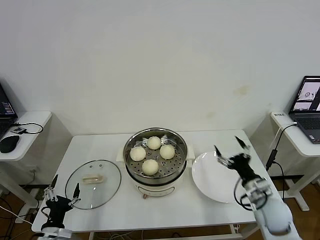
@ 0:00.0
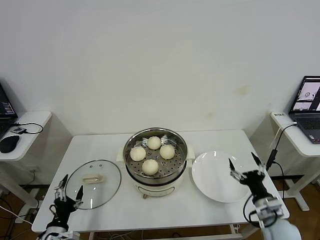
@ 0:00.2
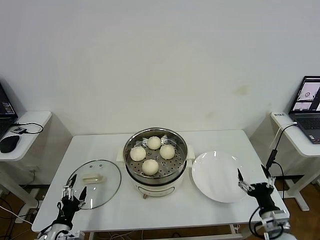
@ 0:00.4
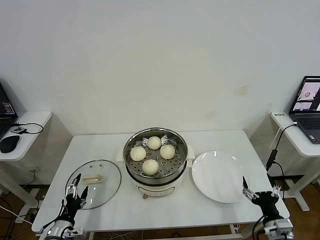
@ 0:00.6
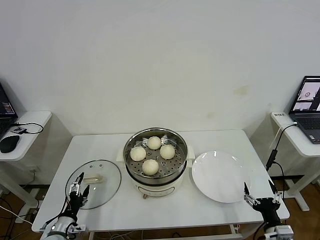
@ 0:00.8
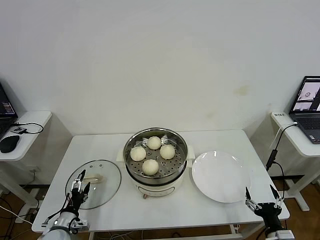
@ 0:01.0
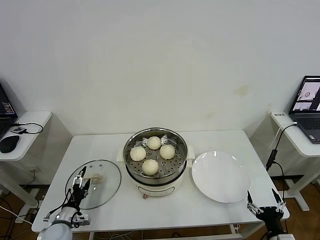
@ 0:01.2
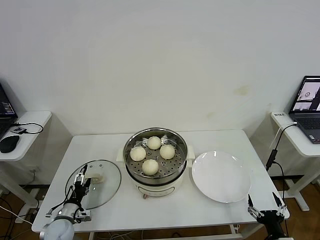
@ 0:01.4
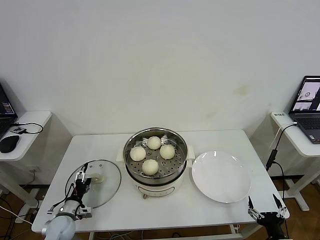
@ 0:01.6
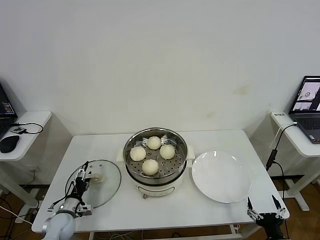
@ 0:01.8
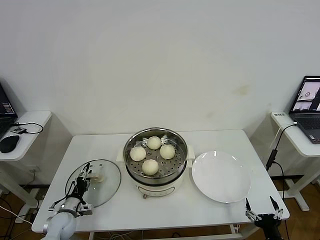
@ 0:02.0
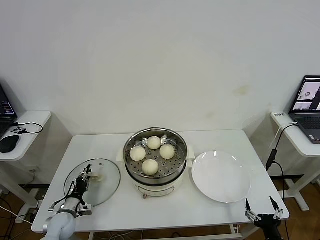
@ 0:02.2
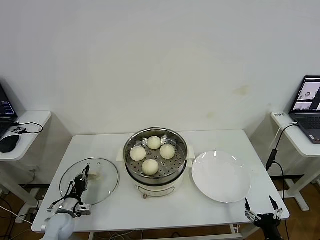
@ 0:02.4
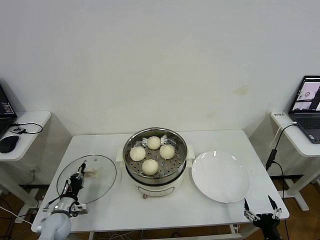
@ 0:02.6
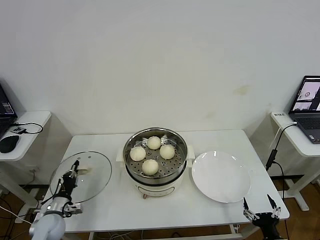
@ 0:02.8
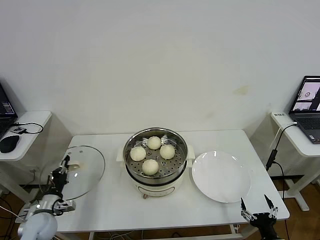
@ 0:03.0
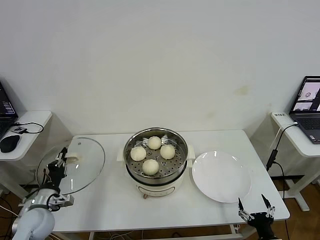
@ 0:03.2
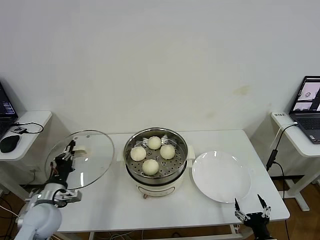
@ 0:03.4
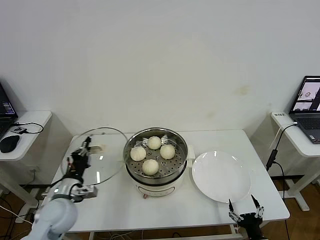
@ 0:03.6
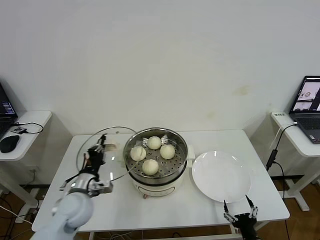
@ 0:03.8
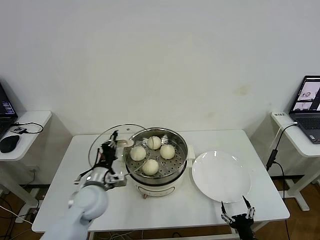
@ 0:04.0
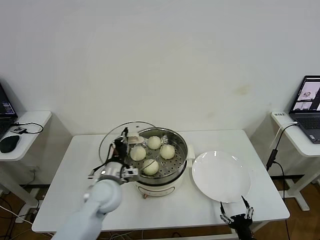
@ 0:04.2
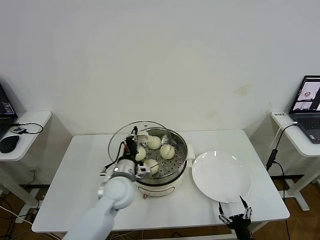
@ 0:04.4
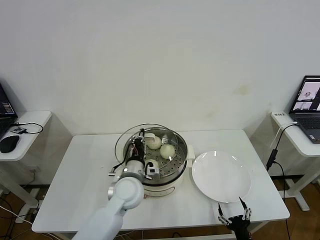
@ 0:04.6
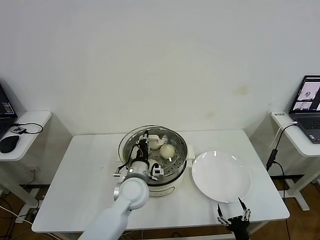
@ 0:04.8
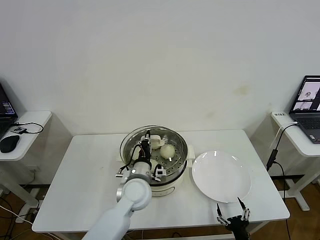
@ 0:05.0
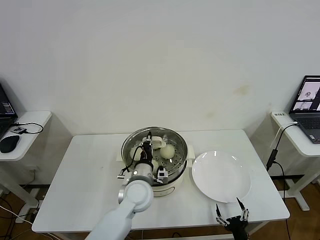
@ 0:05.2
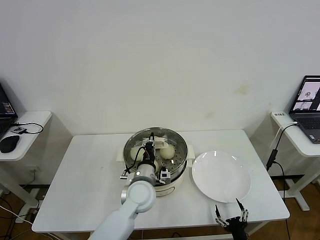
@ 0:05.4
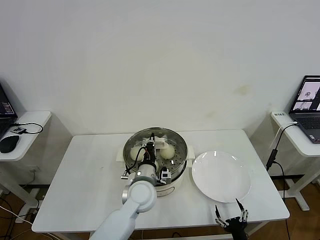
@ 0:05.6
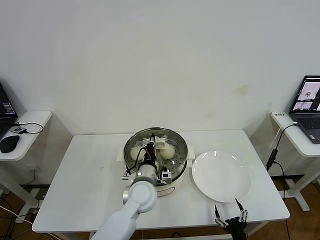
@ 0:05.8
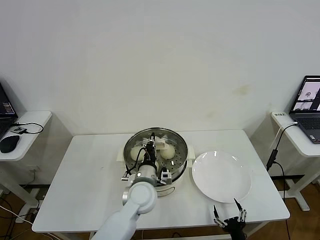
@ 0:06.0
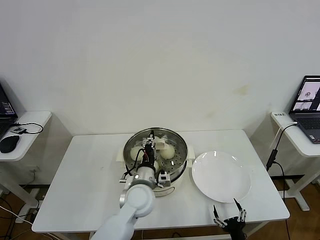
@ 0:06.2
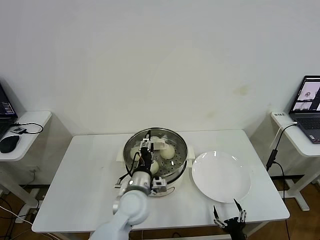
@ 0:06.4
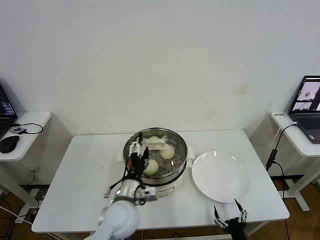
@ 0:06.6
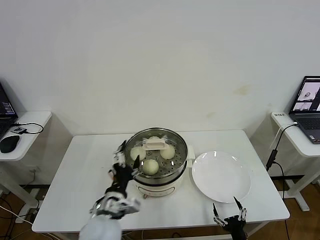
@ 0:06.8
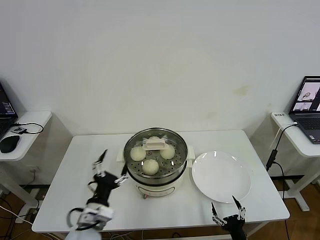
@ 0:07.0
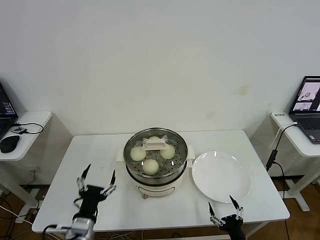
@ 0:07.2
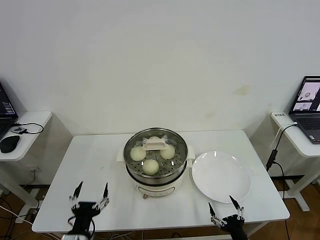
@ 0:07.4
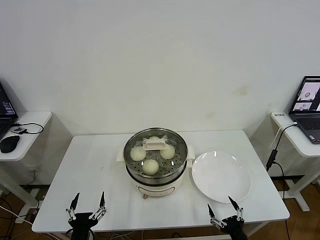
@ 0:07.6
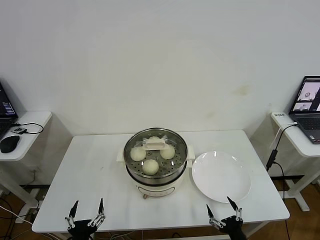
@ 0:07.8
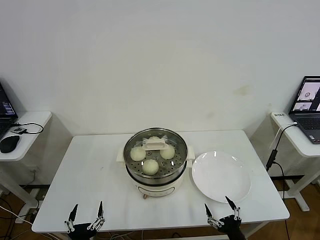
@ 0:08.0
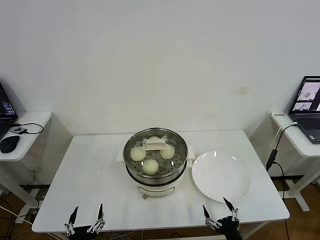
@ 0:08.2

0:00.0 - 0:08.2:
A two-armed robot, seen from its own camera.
Step, 0:00.0 - 0:02.4: Grasp the pot lid with left gripper.
Step, 0:02.8 - 0:06.2: Place the pot lid on the steamer with left gripper.
0:00.0 - 0:01.6: The right gripper heads backward and downward, covering about 20 cm. The left gripper heads forward and downward, covering approximately 15 cm.
0:01.6 - 0:03.2: The left gripper goes roughly 10 cm upward, and closes up.
0:03.2 - 0:05.0: The left gripper travels to the right by some 30 cm; the right gripper is displaced to the left by about 5 cm.
0:05.0 - 0:06.6: The left gripper heads backward, covering some 5 cm, and opens up.
0:06.6 - 0:08.2: The left gripper shifts some 25 cm backward, to the left and downward; the right gripper goes some 5 cm upward.
